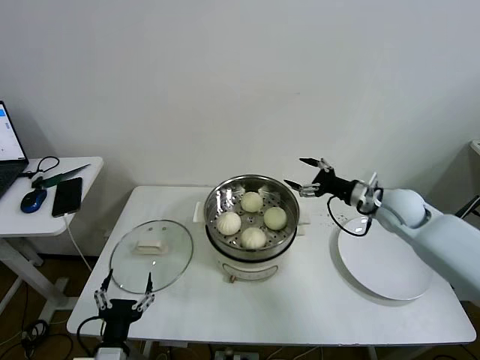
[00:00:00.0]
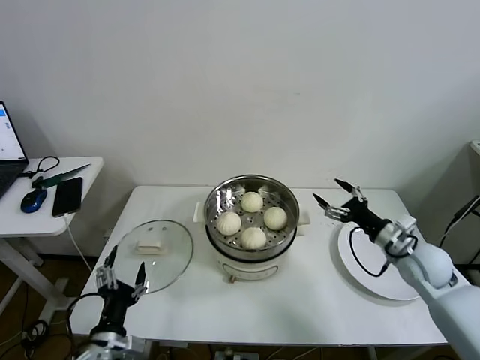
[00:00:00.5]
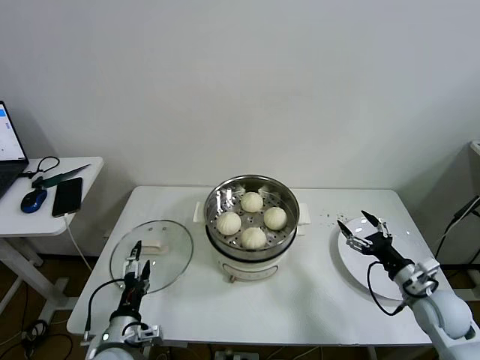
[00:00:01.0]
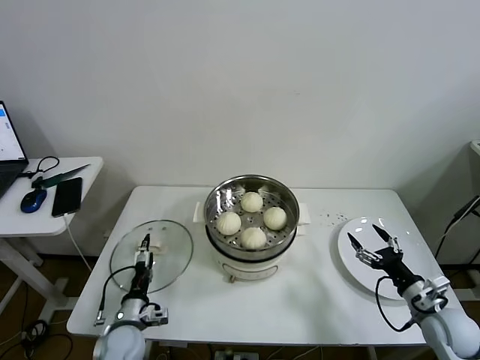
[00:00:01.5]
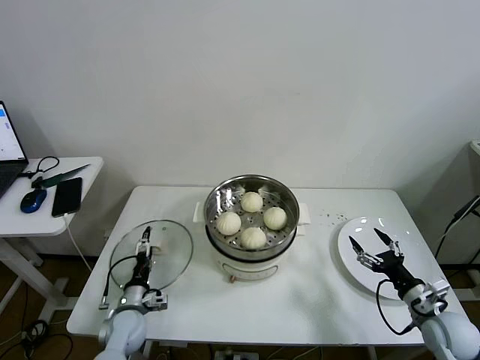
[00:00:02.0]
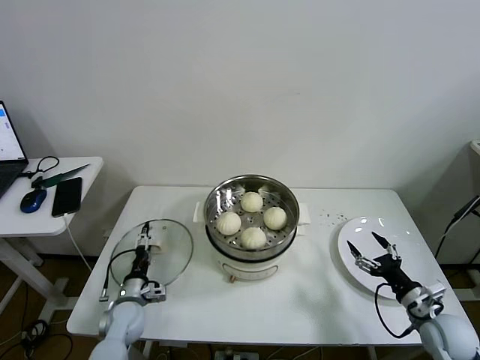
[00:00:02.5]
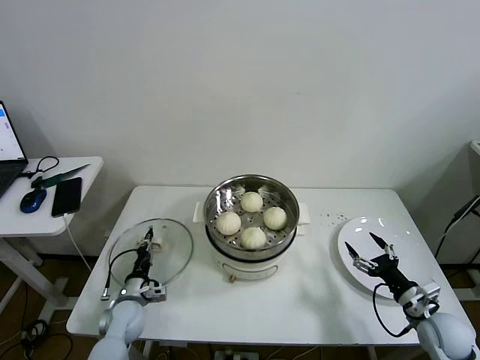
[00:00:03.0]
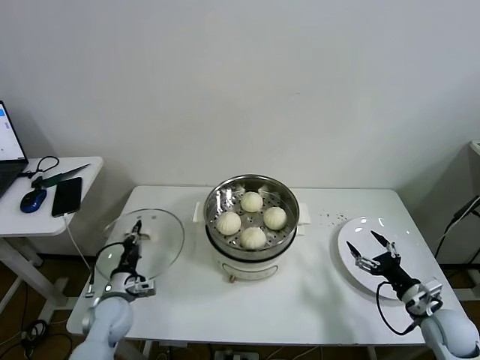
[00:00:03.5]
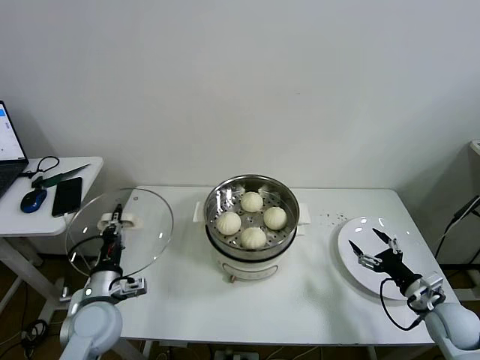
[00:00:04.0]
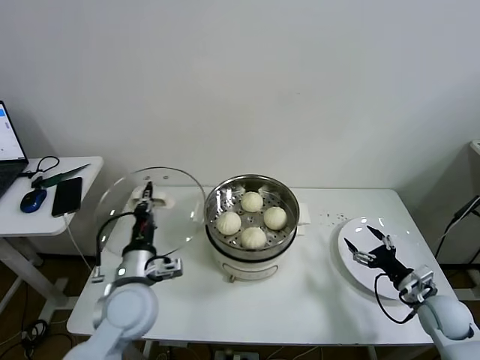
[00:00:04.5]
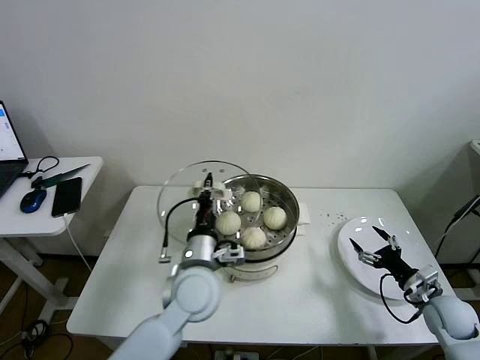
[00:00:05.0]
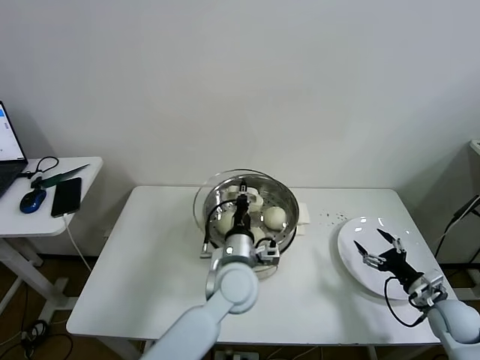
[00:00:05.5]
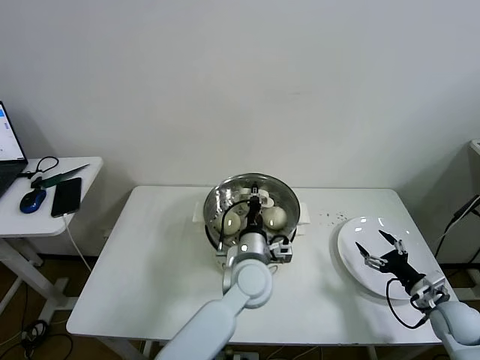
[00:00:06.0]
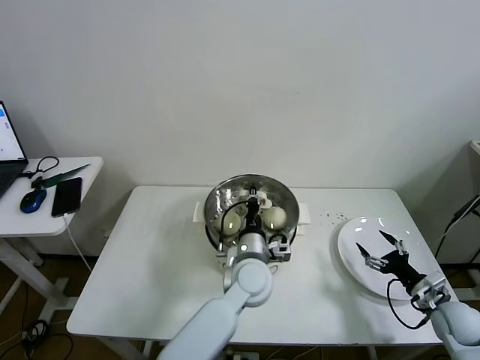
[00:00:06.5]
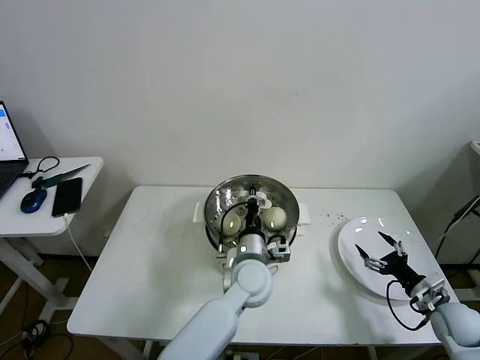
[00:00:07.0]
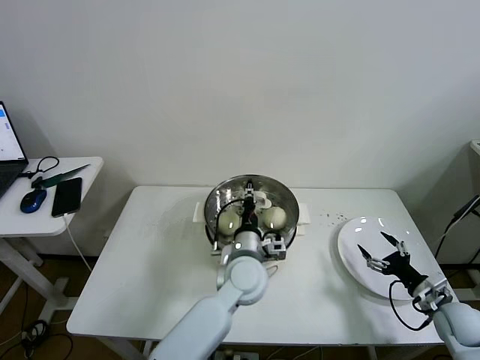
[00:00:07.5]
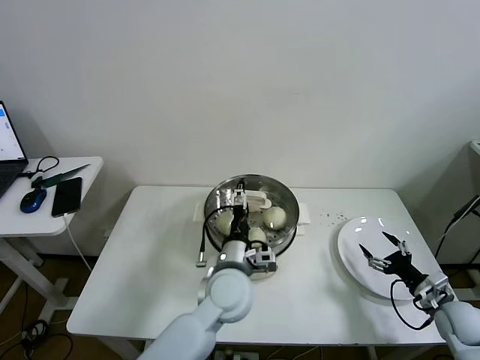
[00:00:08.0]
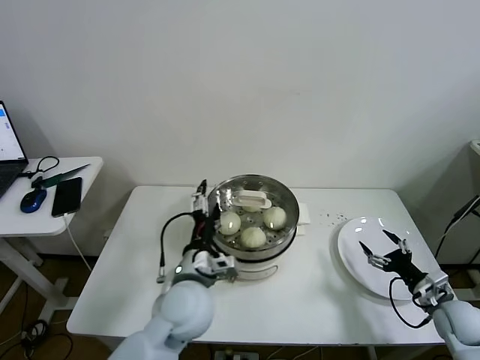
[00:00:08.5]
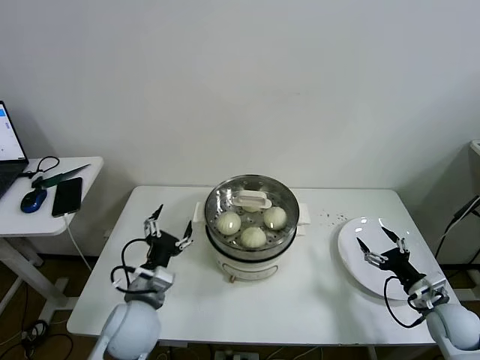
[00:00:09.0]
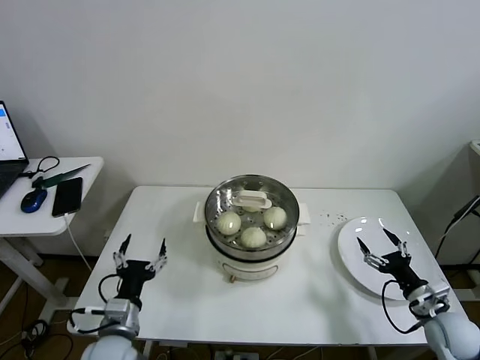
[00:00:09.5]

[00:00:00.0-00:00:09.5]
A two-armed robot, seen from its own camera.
Task of the whole recording: take steamed baozi put them in steamer then cover it.
Step, 00:00:00.0 to 00:00:03.0: Grasp the pot lid with left gripper.
Step, 00:00:03.5 to 00:00:07.0: Place the pot lid on the steamer with left gripper.
00:00:00.0 to 00:00:02.0: The right gripper is displaced backward and downward by some 25 cm. Meanwhile the left gripper moves forward and downward, some 20 cm.
00:00:02.0 to 00:00:04.0: The left gripper travels upward by roughly 10 cm, and closes.
00:00:04.0 to 00:00:05.5: The left gripper moves to the right, roughly 30 cm.
00:00:05.5 to 00:00:07.5: The grippers move only a little.
00:00:07.5 to 00:00:09.5: The left gripper is displaced to the left and backward by some 30 cm, and opens.
